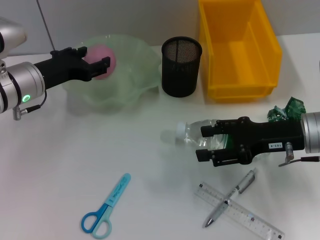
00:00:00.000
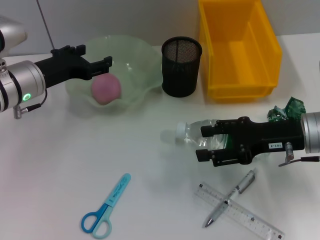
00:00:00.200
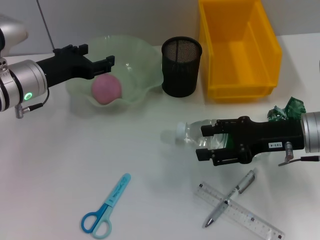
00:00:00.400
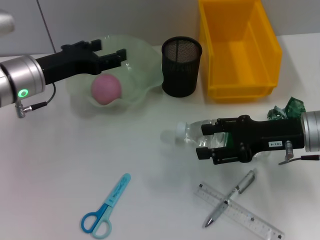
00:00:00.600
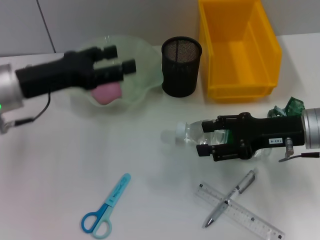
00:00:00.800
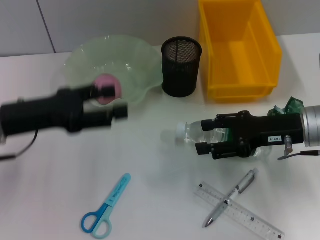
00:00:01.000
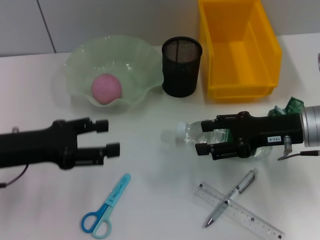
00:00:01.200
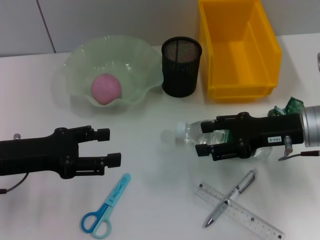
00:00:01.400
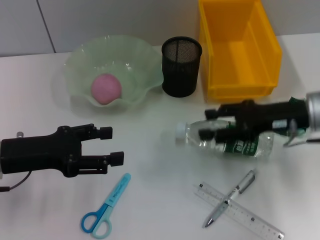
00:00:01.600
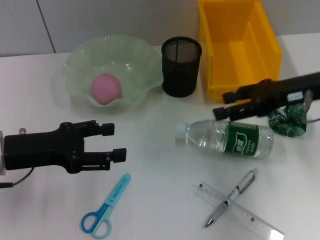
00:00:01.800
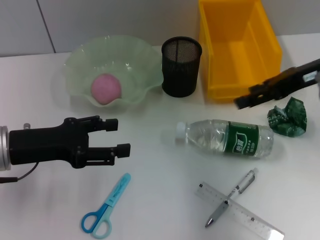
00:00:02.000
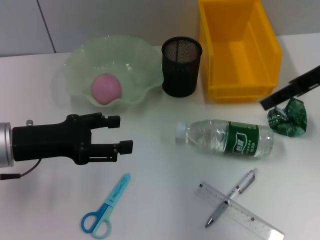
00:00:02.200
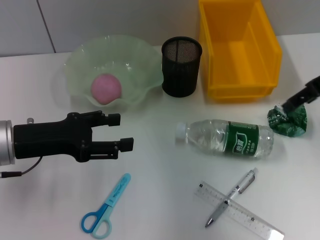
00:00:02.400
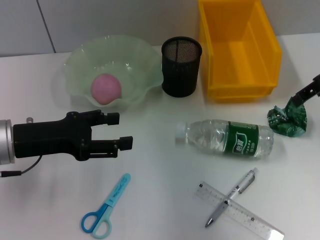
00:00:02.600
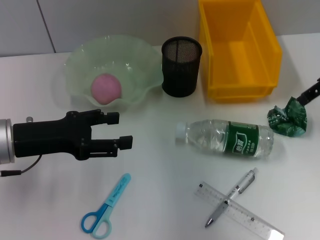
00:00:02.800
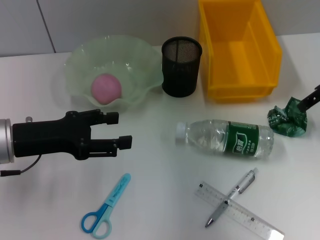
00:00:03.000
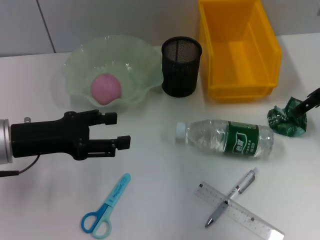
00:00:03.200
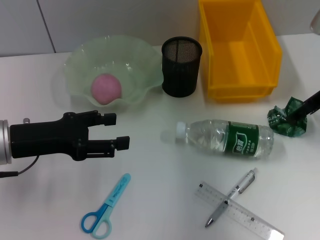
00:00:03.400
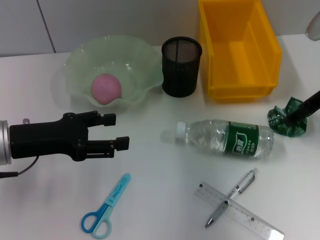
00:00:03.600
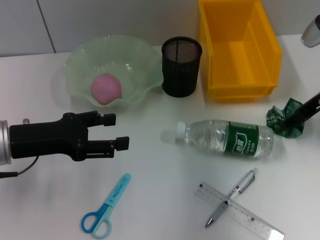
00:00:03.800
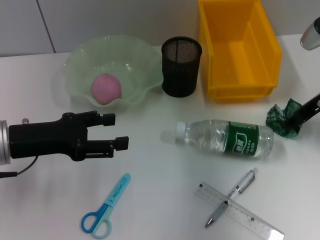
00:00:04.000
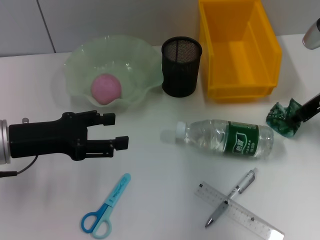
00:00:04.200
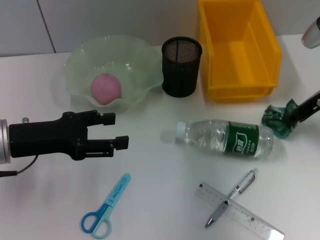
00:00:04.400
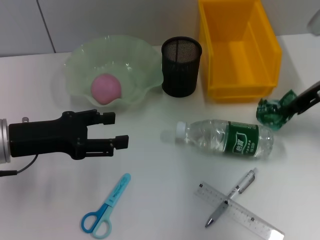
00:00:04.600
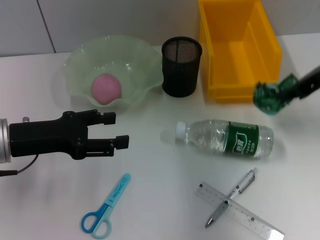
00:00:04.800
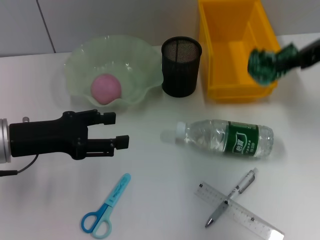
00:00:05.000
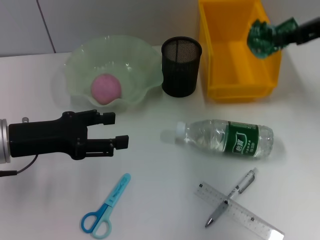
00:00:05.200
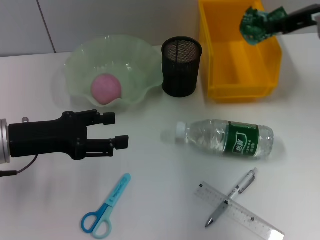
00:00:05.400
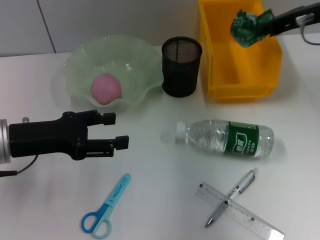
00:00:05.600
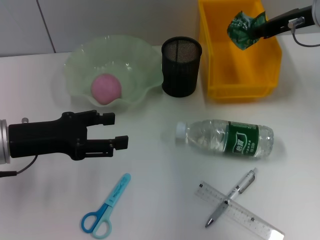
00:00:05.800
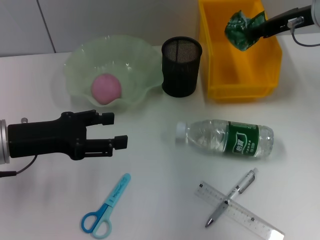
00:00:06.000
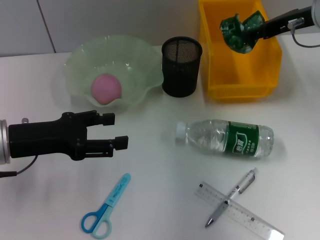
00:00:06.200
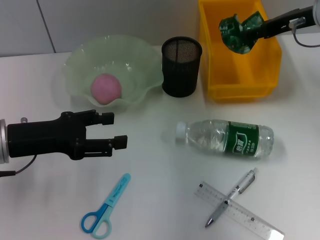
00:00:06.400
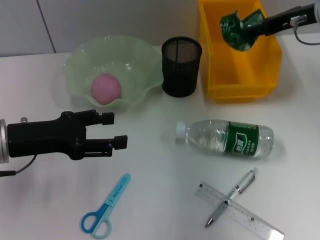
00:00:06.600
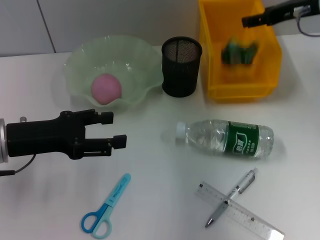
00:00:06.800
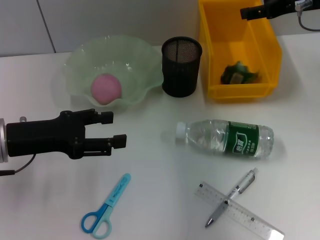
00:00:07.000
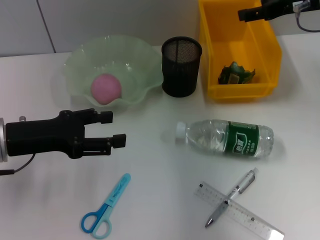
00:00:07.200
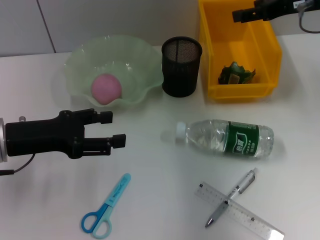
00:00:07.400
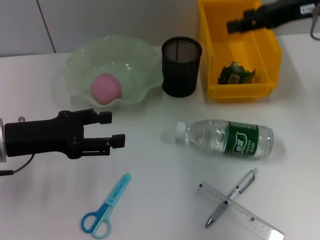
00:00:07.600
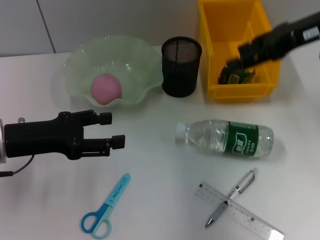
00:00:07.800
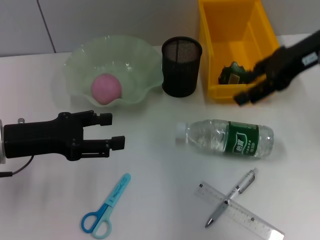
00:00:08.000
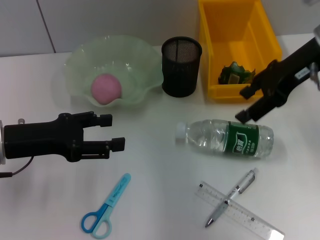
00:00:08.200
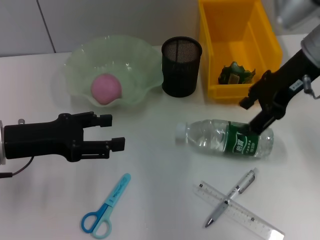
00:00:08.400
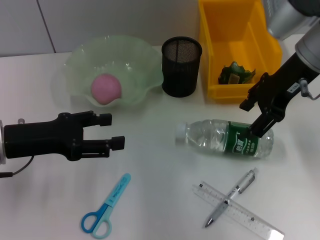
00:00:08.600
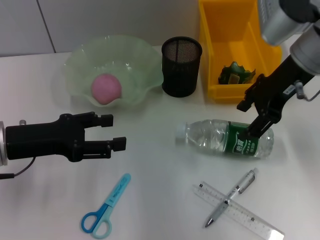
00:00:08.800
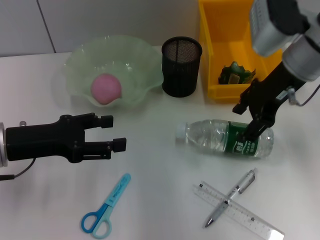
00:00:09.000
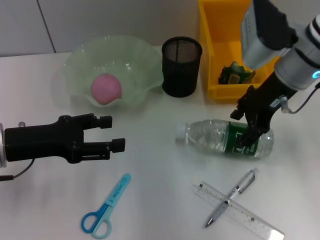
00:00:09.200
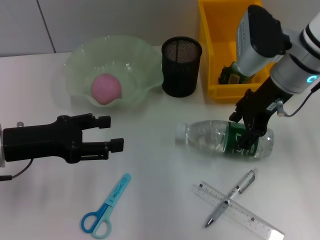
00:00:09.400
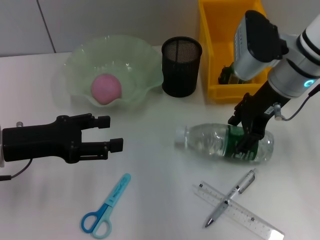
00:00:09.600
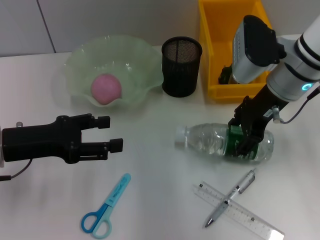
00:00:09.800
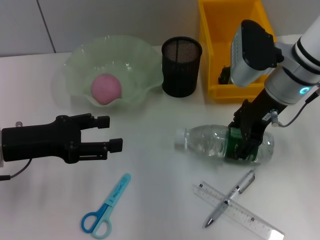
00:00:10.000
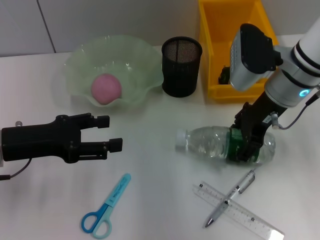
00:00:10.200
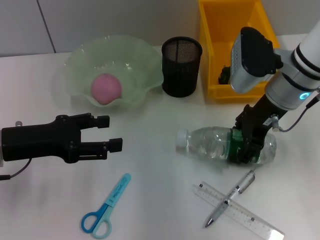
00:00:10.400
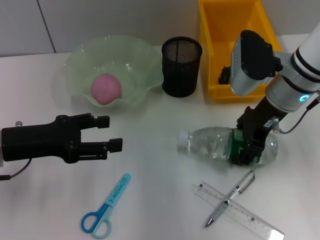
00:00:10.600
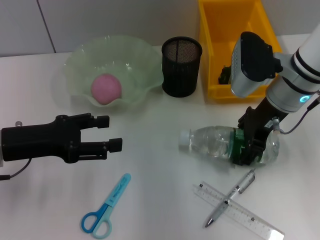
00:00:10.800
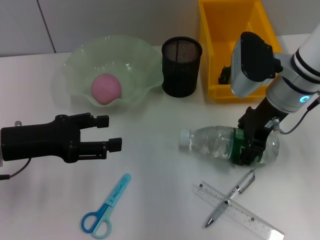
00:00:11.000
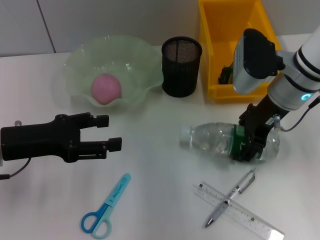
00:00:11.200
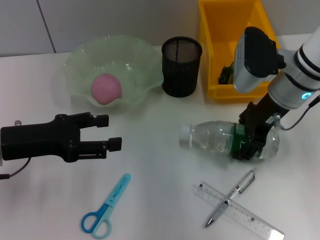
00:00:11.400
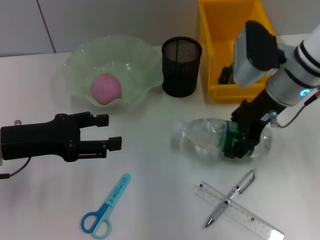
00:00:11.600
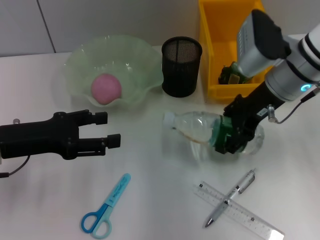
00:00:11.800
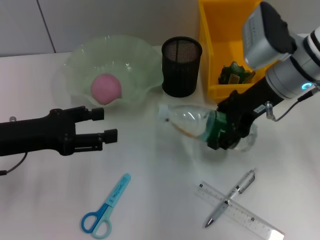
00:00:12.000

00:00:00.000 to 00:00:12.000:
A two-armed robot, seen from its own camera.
Step, 00:00:00.200 to 00:00:04.000: Grab the plastic with the right hand.
Step, 00:00:04.400 to 00:00:07.000: Place the plastic into the trash can with the right hand.
Step, 00:00:07.200 to 00:00:10.800: Grab the water bottle with the right hand.
00:00:00.000 to 00:00:01.600: The left gripper heads backward, covering about 10 cm, and opens.
00:00:01.600 to 00:00:03.000: The right gripper travels upward, forward and to the right by about 10 cm.
00:00:03.000 to 00:00:04.400: The right gripper heads downward, covering approximately 5 cm, and closes up.
00:00:04.400 to 00:00:06.000: The right gripper heads upward and forward, covering roughly 10 cm.
00:00:06.000 to 00:00:07.600: The right gripper ends up approximately 5 cm from where it was, and opens.
00:00:07.600 to 00:00:09.000: The right gripper moves to the left and downward, approximately 10 cm.
00:00:09.000 to 00:00:10.400: The right gripper travels downward by approximately 5 cm.
00:00:10.400 to 00:00:12.000: The grippers make only small movements.

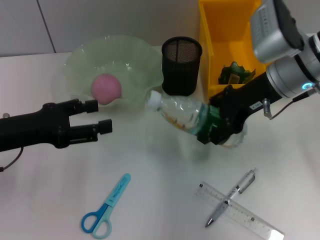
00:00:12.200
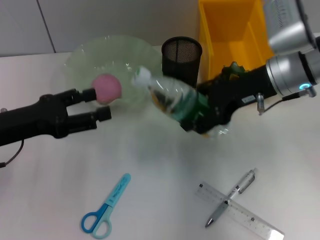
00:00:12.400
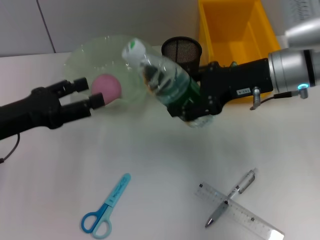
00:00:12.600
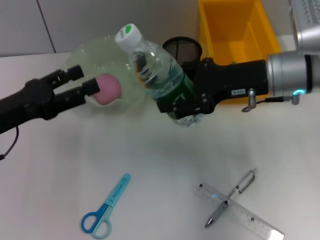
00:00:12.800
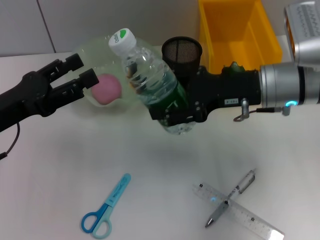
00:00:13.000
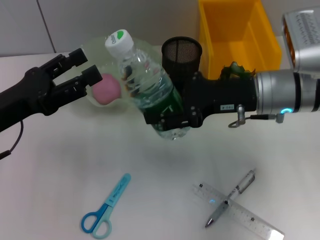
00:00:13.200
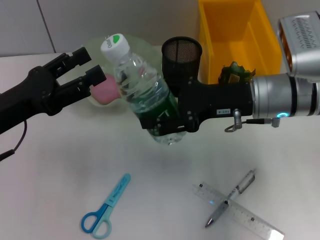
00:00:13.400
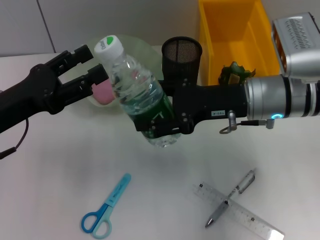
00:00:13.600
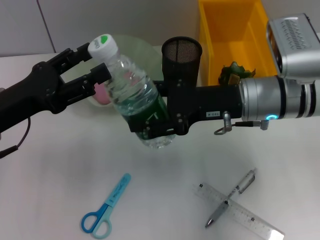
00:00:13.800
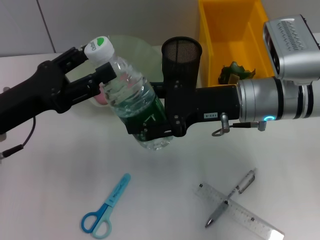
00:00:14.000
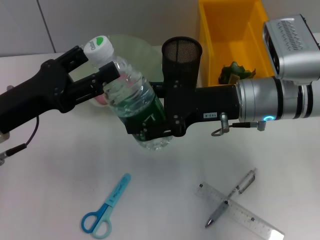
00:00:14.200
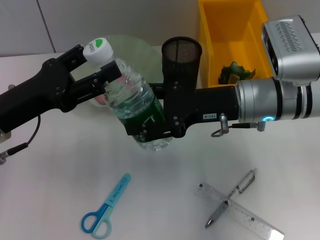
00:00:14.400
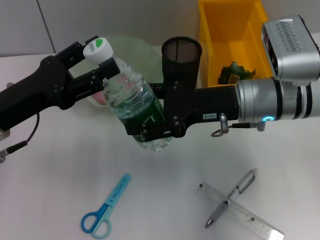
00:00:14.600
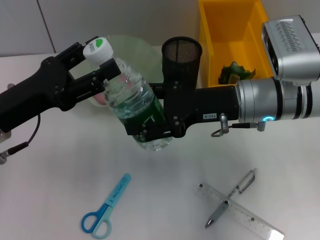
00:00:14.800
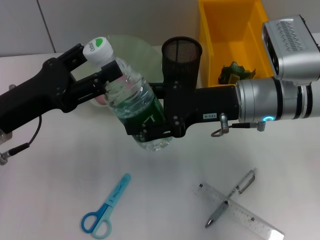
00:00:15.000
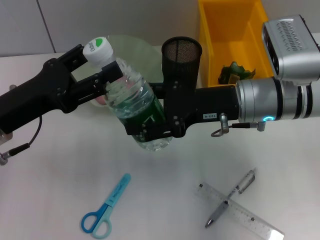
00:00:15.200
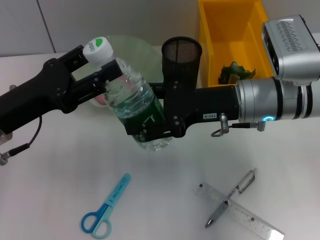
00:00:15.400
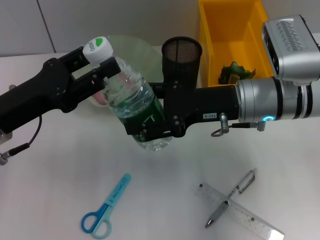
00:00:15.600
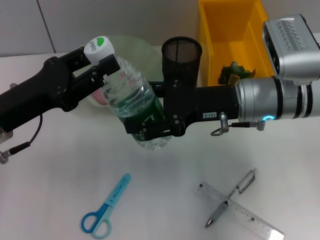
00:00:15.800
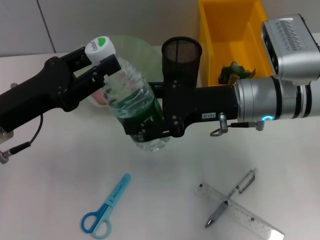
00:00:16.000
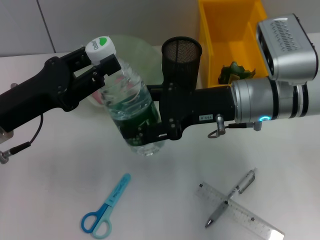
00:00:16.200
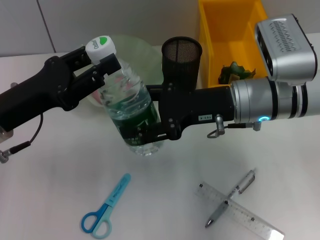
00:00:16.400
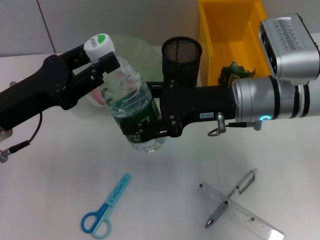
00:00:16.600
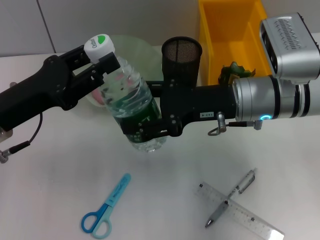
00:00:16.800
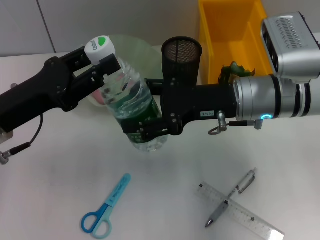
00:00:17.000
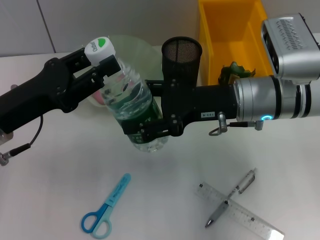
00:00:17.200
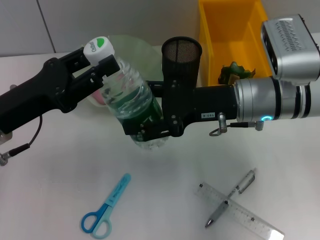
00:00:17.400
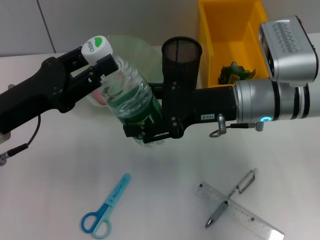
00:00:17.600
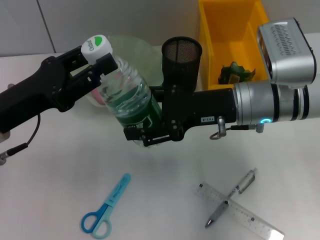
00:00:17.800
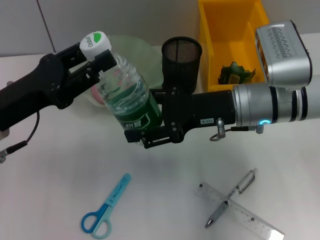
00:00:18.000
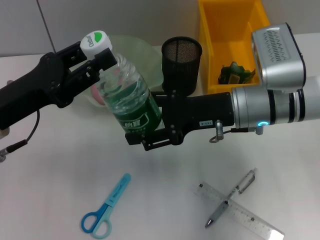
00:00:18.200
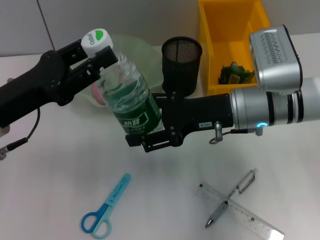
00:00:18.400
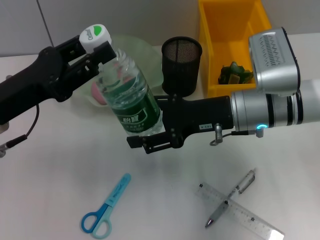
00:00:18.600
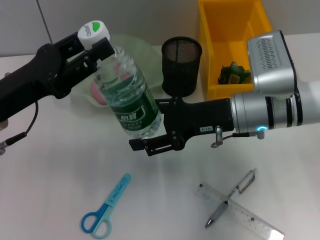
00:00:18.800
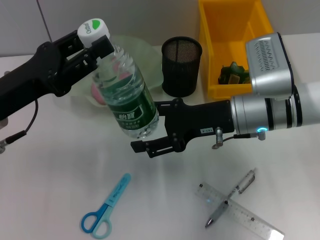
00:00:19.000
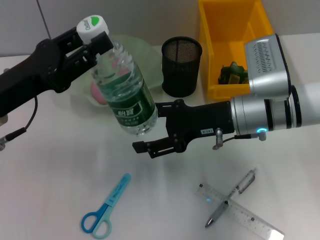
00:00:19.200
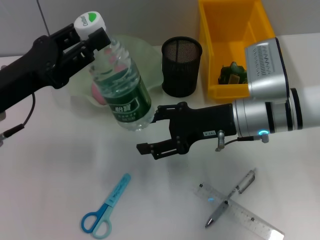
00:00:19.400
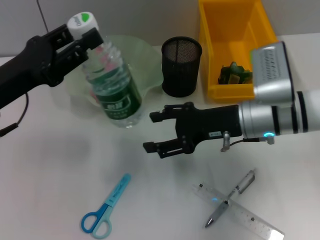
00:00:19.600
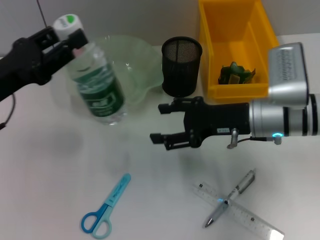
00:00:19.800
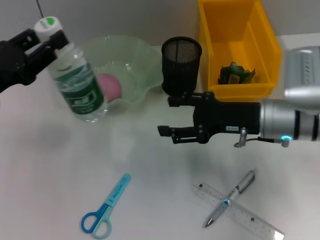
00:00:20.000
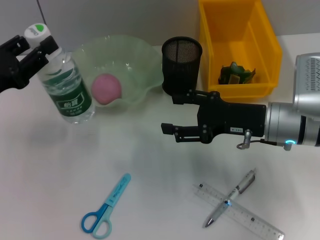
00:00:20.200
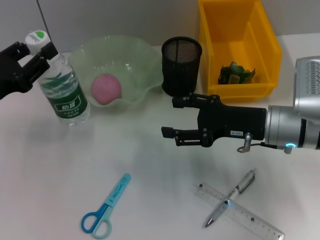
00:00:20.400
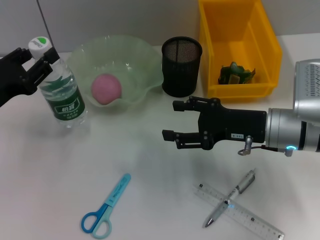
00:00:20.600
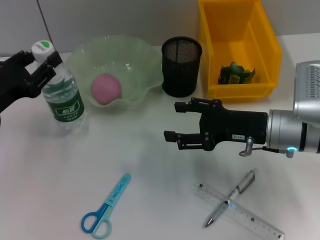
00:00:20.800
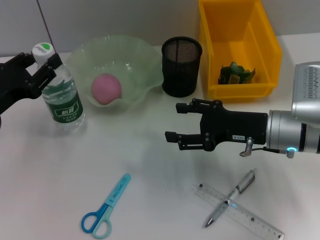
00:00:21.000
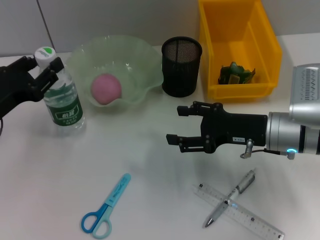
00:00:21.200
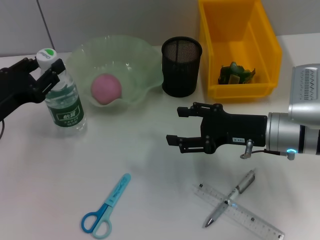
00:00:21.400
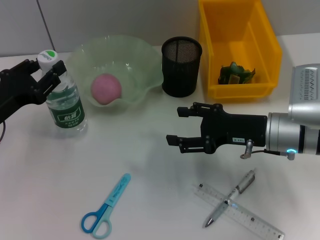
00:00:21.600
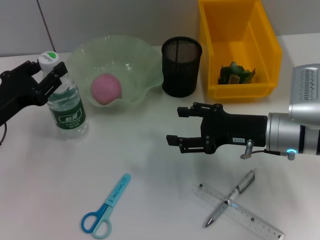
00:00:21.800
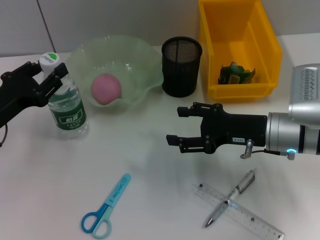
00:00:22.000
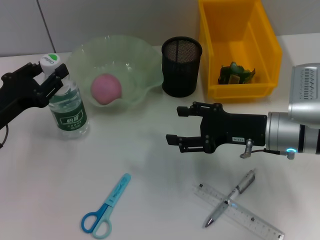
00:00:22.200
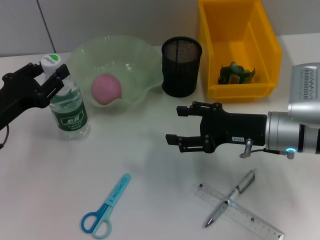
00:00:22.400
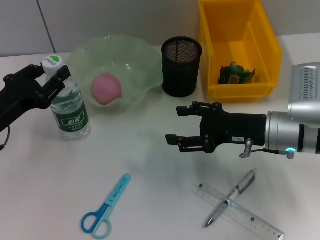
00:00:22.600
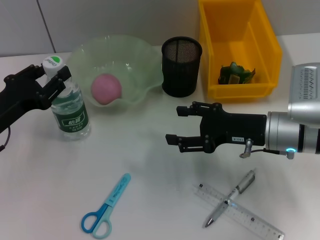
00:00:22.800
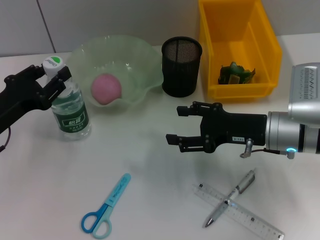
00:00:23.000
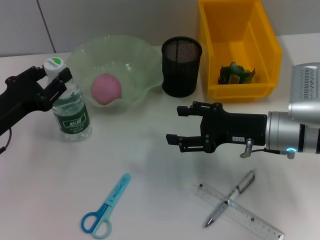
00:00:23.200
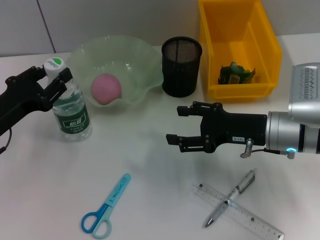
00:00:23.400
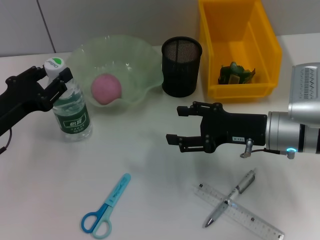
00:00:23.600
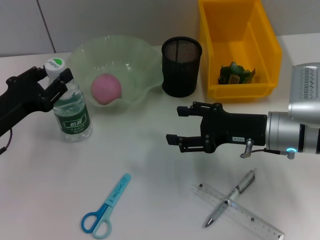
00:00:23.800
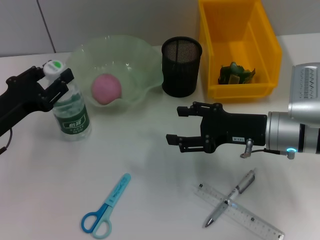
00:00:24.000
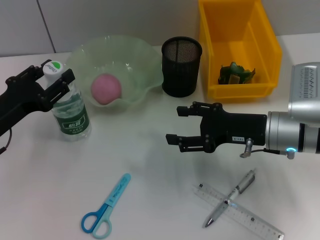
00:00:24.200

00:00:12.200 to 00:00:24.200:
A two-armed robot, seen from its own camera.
Step, 00:00:12.200 to 00:00:18.000: Pass the water bottle from the right hand to the left hand.
00:00:12.200 to 00:00:13.800: The right gripper ends up roughly 5 cm from where it was.
00:00:13.800 to 00:00:15.200: Both grippers stay put.
00:00:15.200 to 00:00:16.600: The left gripper closes.
00:00:16.600 to 00:00:18.200: The grippers stay close to where they were, moving slightly.
00:00:19.800 to 00:00:21.200: The left gripper moves approximately 5 cm.
00:00:21.200 to 00:00:22.600: Both grippers stay put.
00:00:22.600 to 00:00:24.200: Both grippers stay put.
